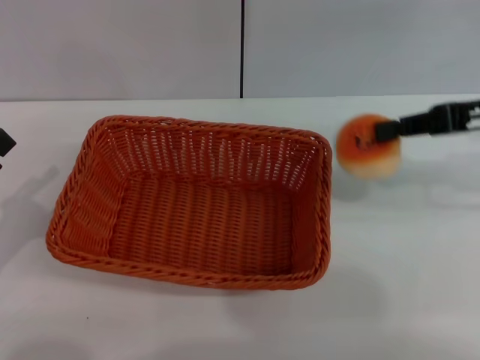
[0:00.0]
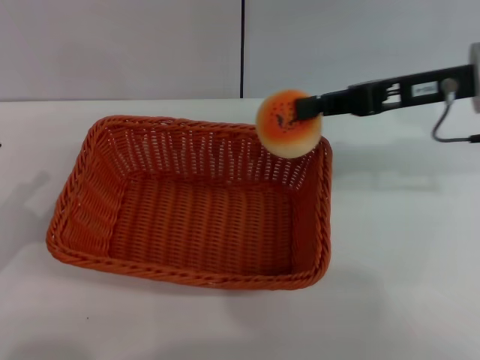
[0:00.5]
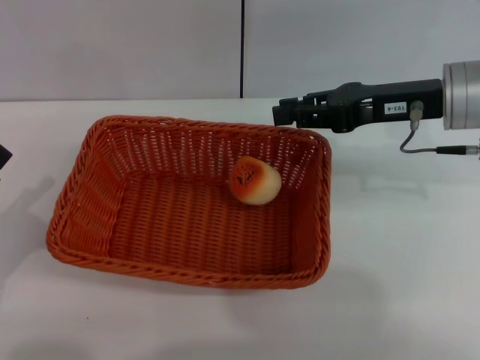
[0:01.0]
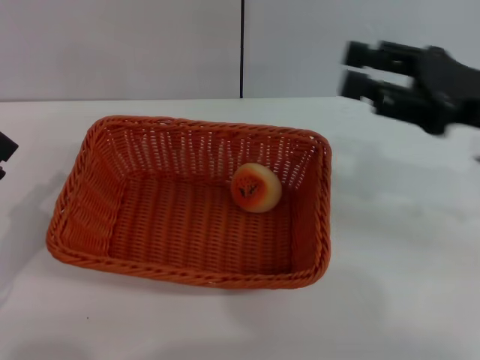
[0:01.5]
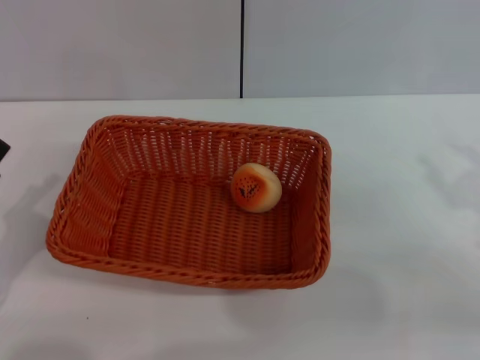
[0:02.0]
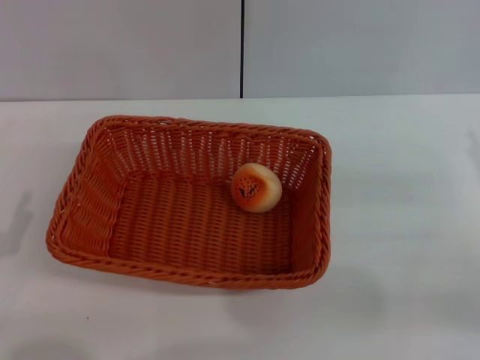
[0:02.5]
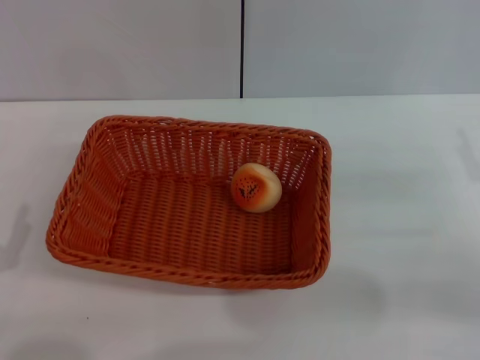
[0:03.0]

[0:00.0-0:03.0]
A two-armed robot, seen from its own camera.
Step, 0:00.0 to 0:01.0: Place the egg yolk pastry into the basket with the right gripper.
0:00.0 to 0:01.5: The right gripper opens.
0:01.5 to 0:03.0: The right gripper heads downward, backward and to the right, covering some 15 cm.

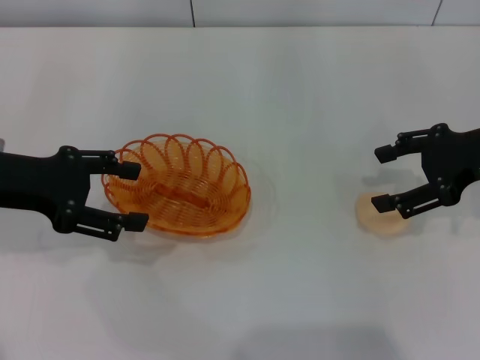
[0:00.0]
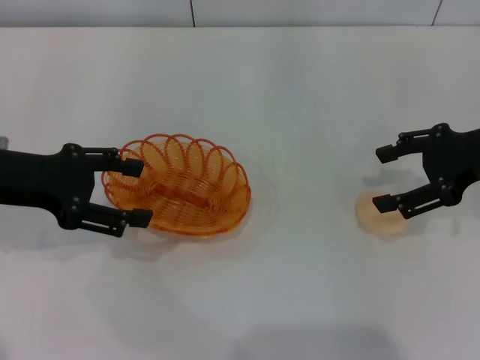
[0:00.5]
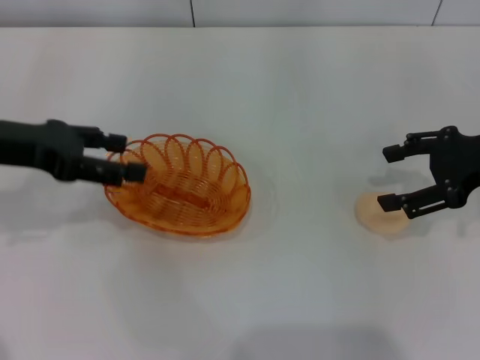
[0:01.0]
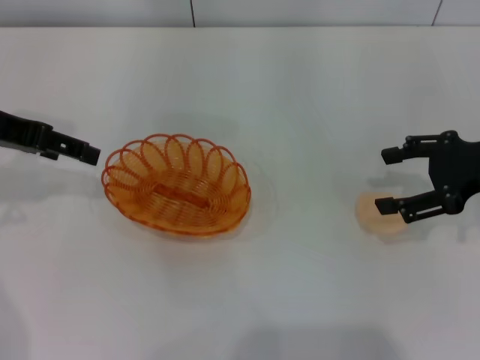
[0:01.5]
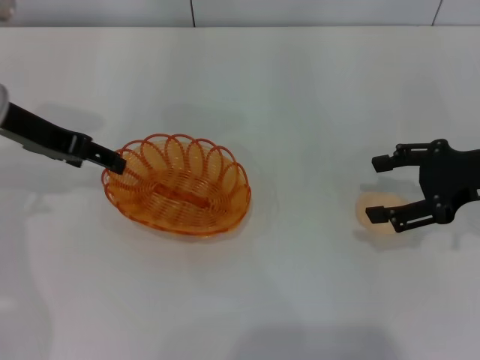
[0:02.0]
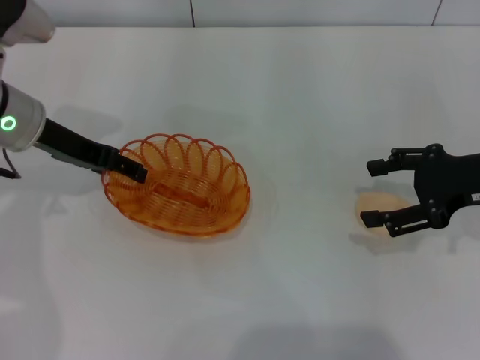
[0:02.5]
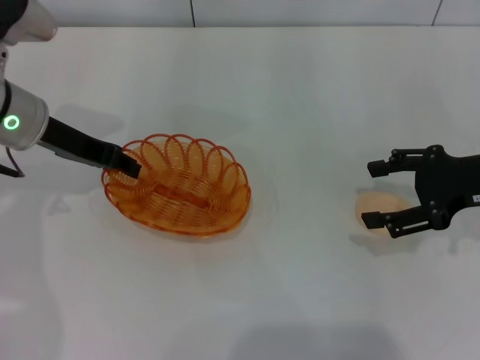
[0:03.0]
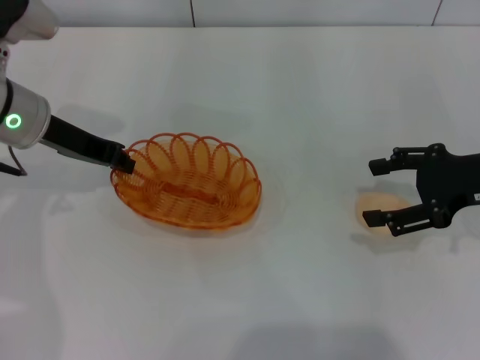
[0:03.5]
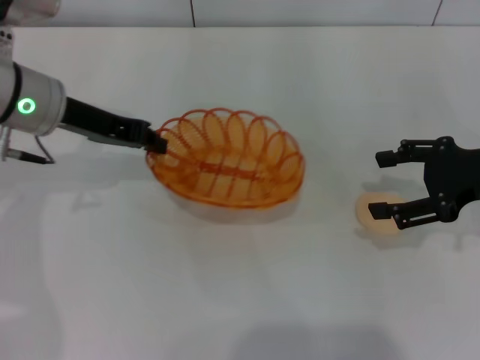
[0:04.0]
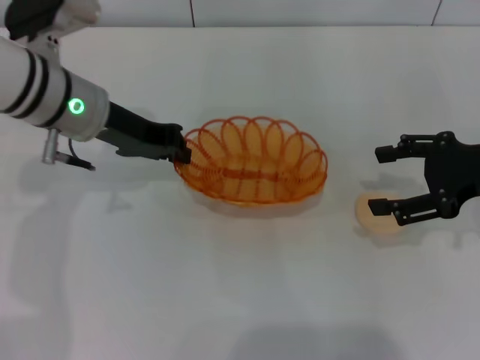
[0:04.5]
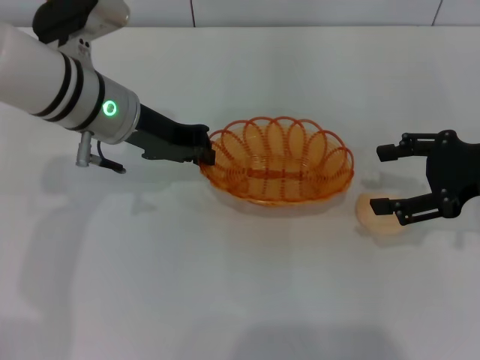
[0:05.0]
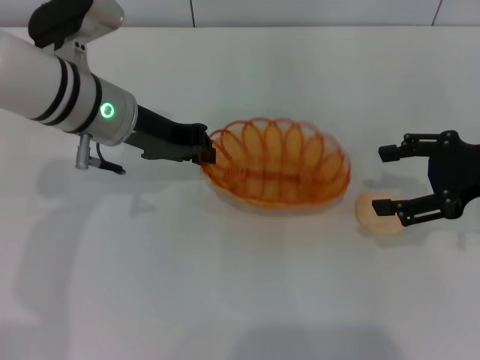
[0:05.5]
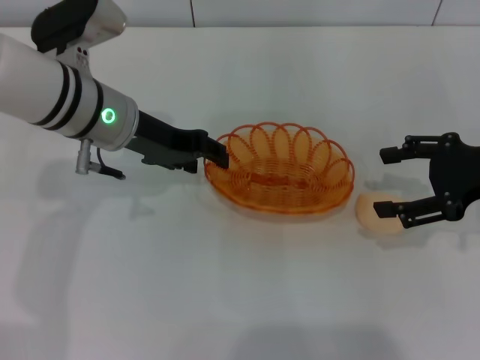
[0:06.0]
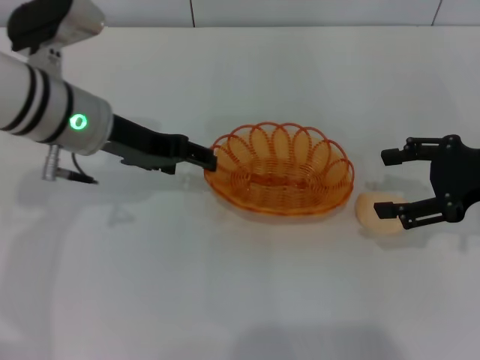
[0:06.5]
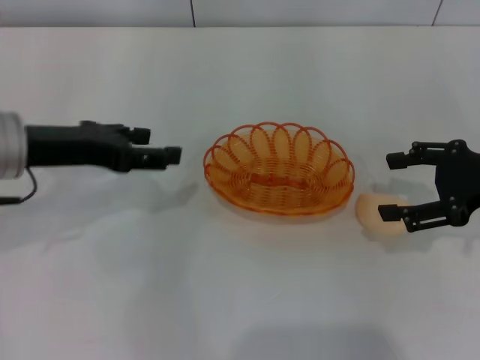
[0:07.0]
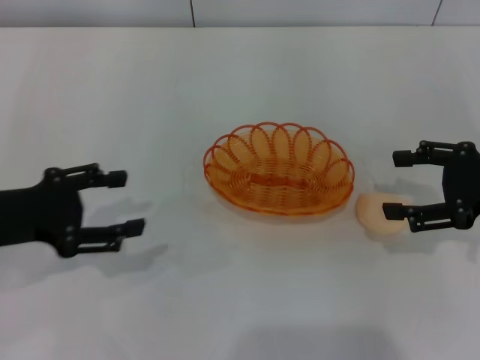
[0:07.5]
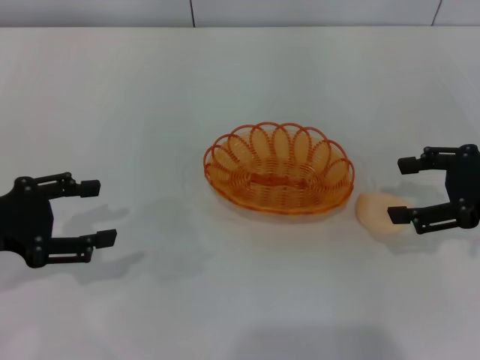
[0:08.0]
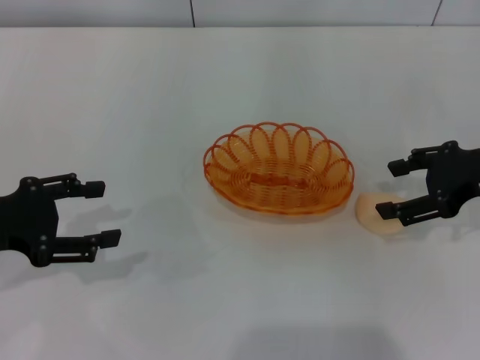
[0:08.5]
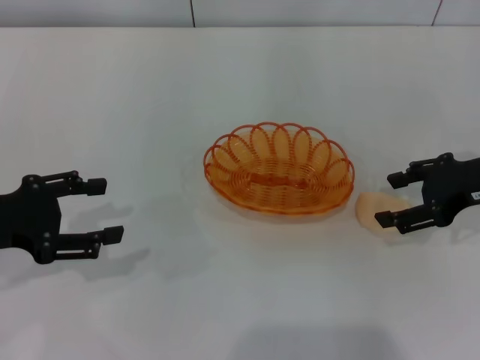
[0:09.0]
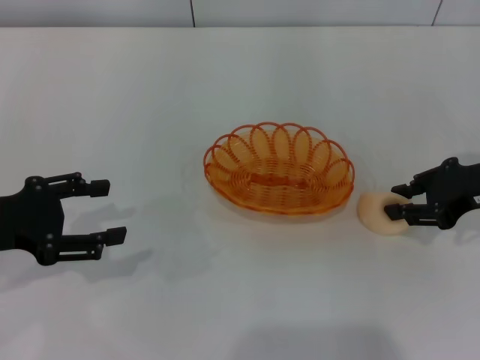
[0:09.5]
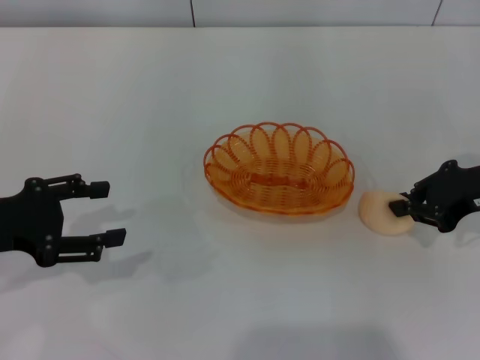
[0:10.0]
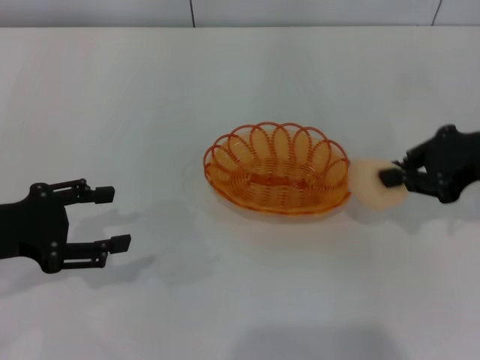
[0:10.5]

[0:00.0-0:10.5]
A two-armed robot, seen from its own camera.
Step, 0:00.0 to 0:04.0: Pick up the basket with the left gripper.
Step, 0:04.5 to 0:06.5: Place the basket in the center of view with the left gripper.
Step, 0:07.5 to 0:10.0: Pick up the egg yolk pastry with the right gripper.
0:00.0 to 0:02.0: The left gripper goes some 5 cm forward.
0:02.0 to 0:04.0: The left gripper closes.
0:04.0 to 0:06.5: The left gripper opens.
0:06.5 to 0:08.5: The left gripper goes some 20 cm to the left and backward.
0:08.5 to 0:10.5: The right gripper closes its fingers.

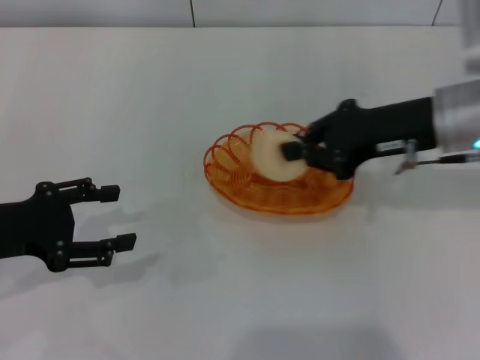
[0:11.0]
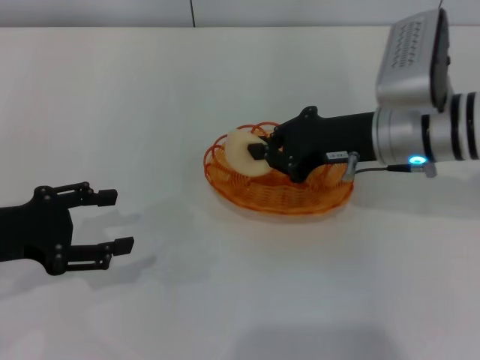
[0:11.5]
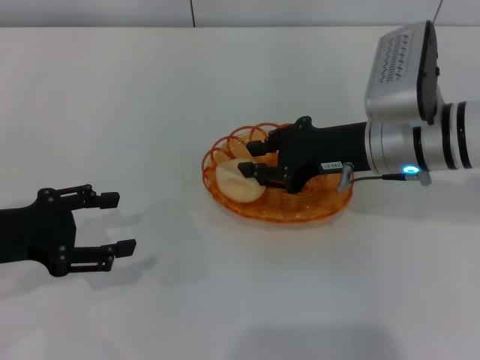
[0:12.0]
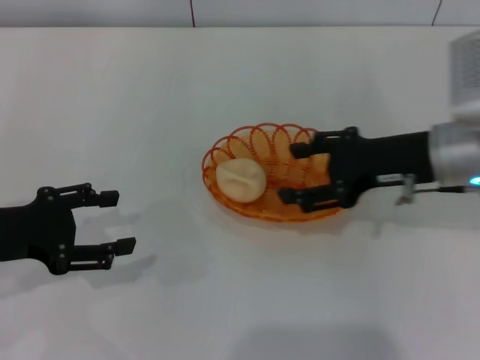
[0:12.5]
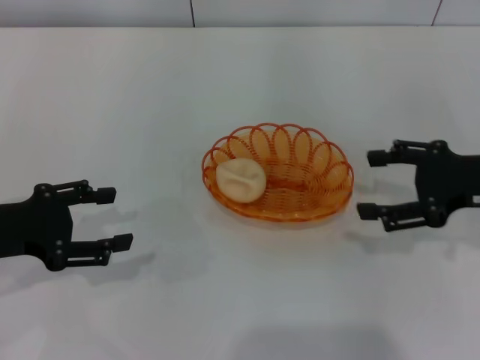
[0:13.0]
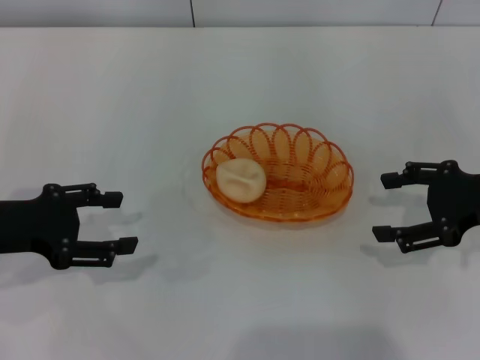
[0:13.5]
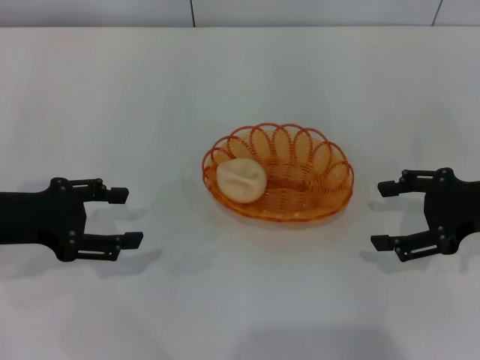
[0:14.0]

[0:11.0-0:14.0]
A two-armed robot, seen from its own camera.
Step, 0:11.0 to 0:12.5: Place the egg yolk pastry into the basket with the right gripper.
0:11.0 to 0:12.5: The right gripper opens up.
0:12.5 to 0:14.0: The right gripper shifts roughly 10 cm to the right.

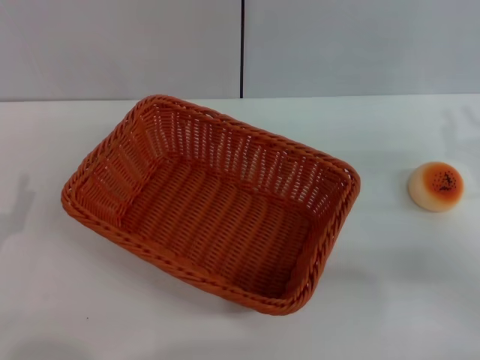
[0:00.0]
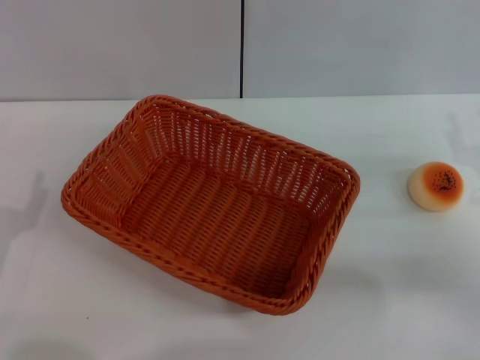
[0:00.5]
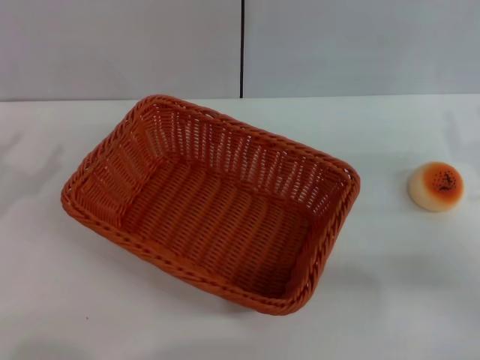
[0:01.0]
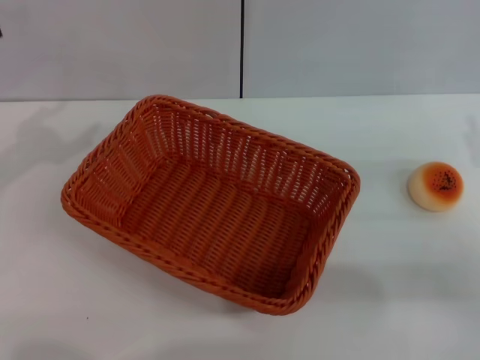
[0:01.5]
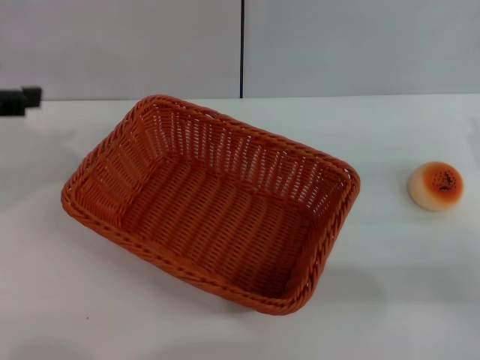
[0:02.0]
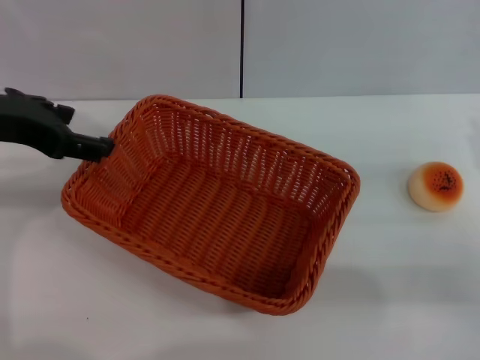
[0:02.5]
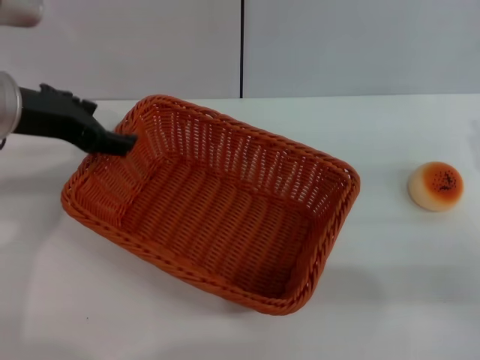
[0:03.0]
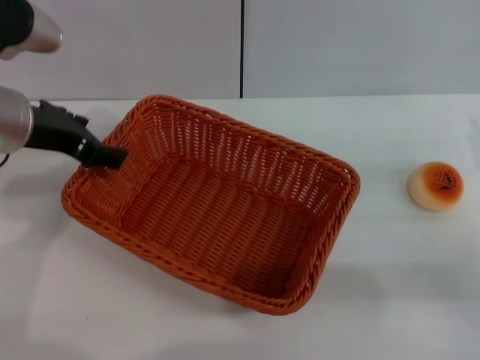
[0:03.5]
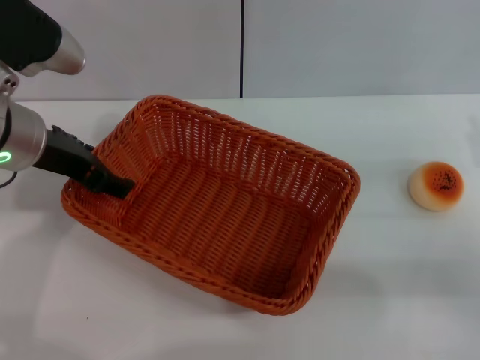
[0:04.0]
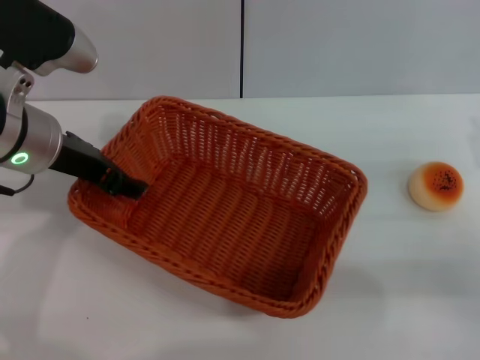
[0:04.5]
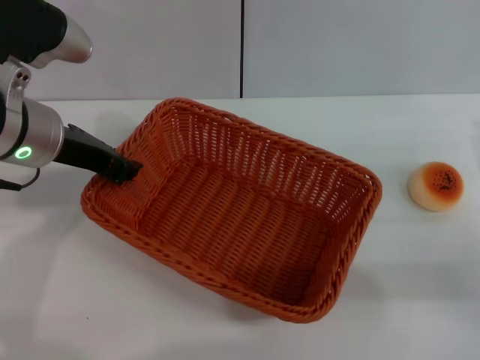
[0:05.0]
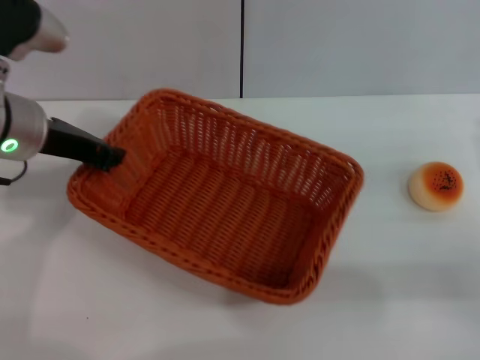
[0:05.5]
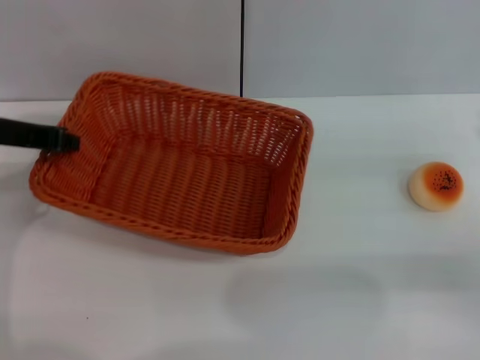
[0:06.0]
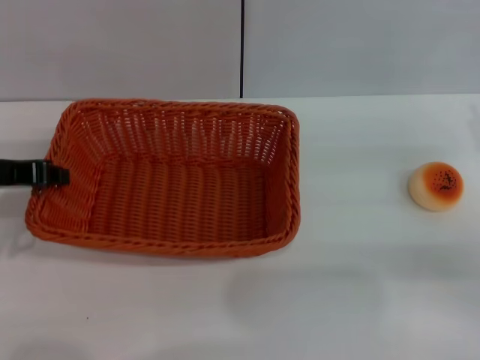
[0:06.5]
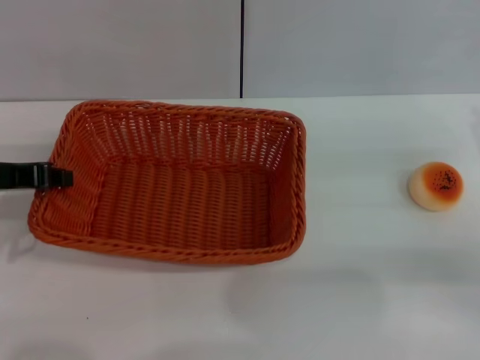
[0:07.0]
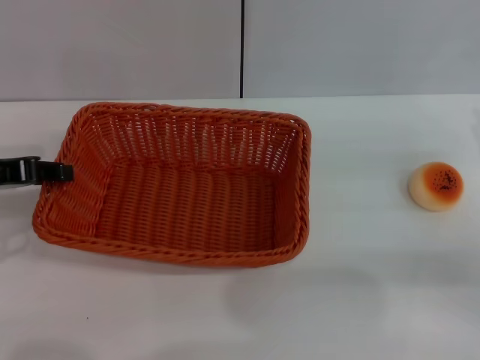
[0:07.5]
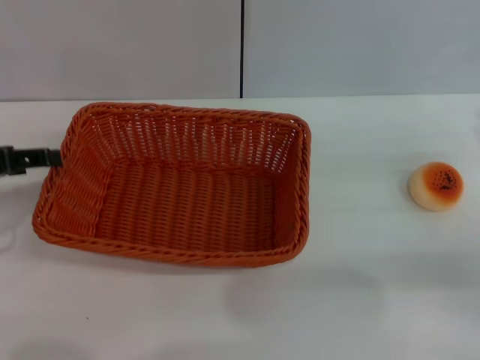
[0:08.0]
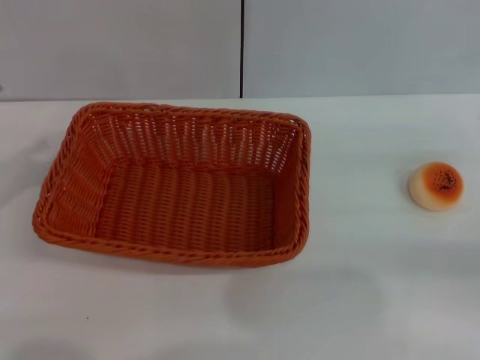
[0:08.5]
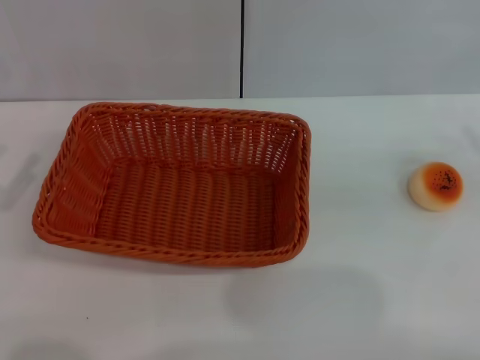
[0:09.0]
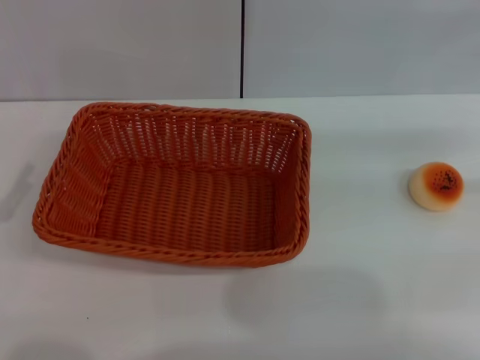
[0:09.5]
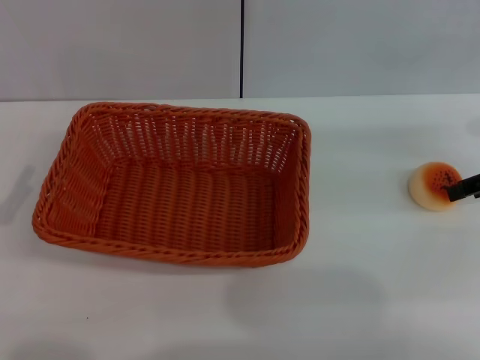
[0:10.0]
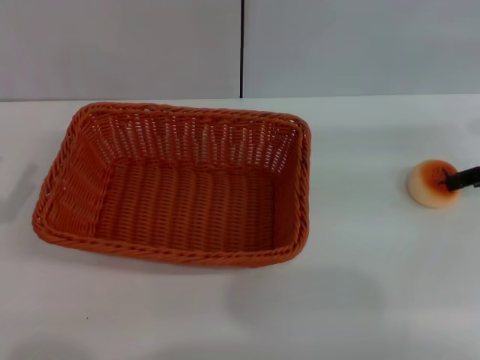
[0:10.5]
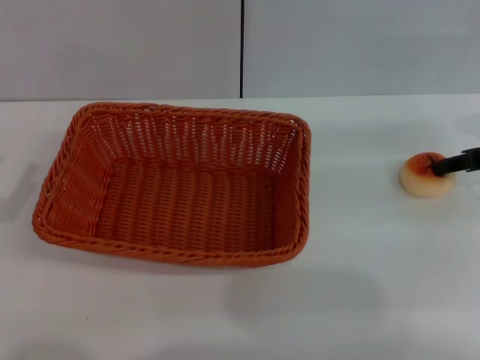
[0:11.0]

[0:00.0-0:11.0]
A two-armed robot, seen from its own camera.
Step, 0:00.0 to 0:08.0: Move the basket to the center of view with the left gripper.
0:00.0 to 0:02.0: The left gripper is displaced upward and forward by some 25 cm.
0:02.0 to 0:03.5: The left gripper shifts approximately 15 cm to the right, downward and forward.
0:03.5 to 0:05.5: The left gripper closes its fingers.
0:05.5 to 0:07.5: The left gripper travels to the left by approximately 10 cm.
0:07.5 to 0:09.0: The left gripper heads backward, to the left and downward, covering approximately 15 cm, and opens. The right gripper is displaced upward and to the right by roughly 10 cm.
0:09.0 to 0:11.0: The right gripper moves to the left and forward, approximately 10 cm.
